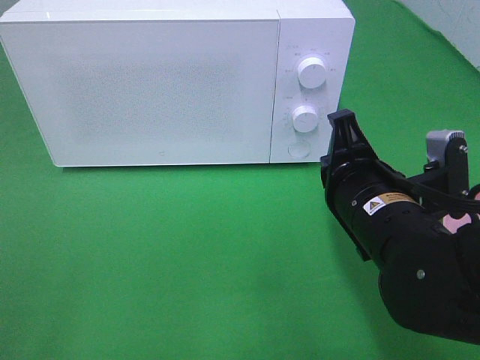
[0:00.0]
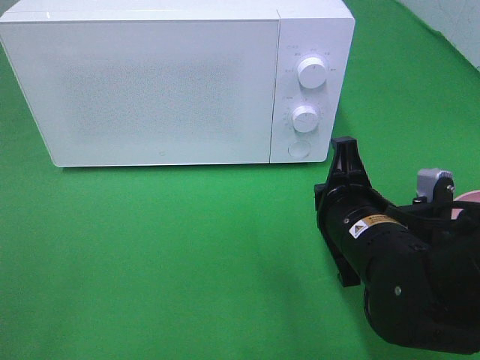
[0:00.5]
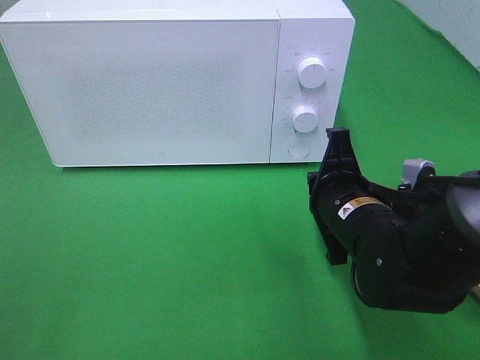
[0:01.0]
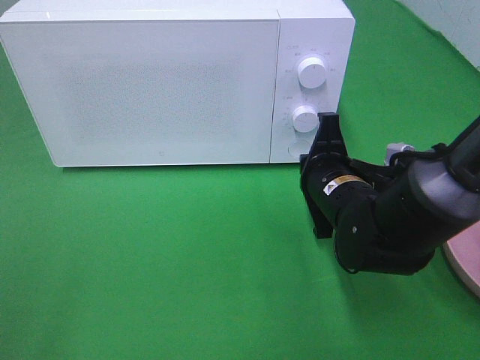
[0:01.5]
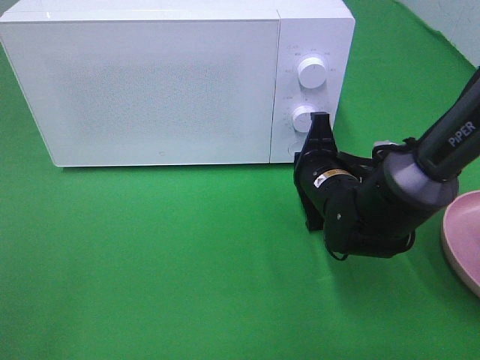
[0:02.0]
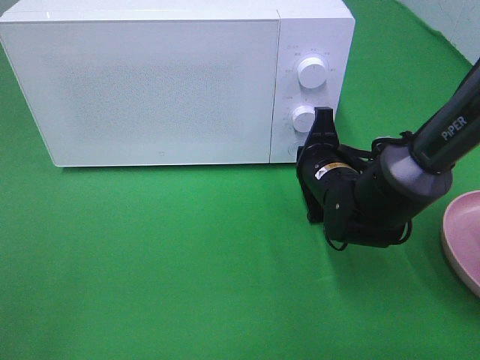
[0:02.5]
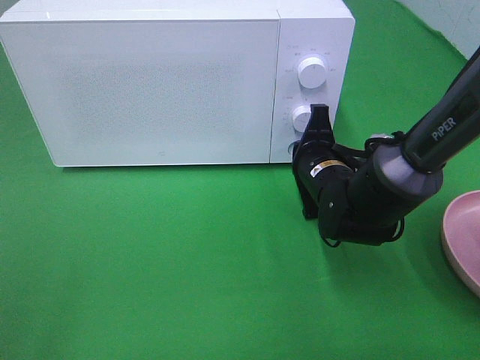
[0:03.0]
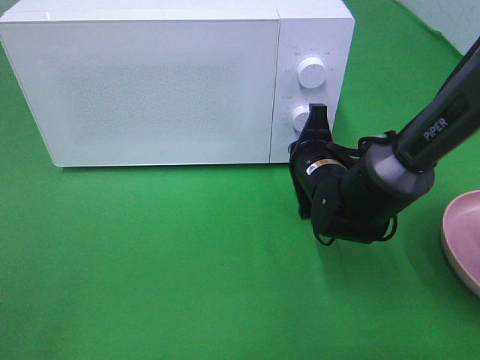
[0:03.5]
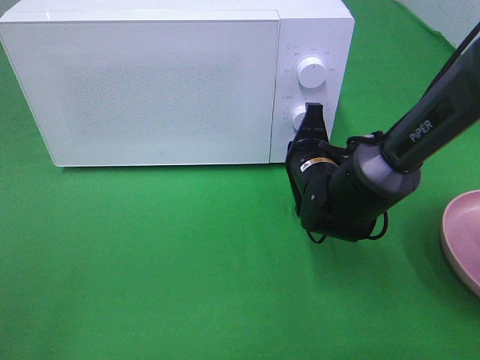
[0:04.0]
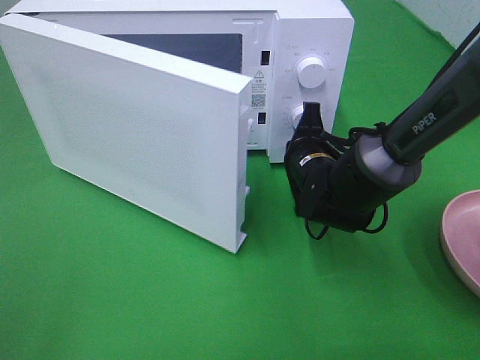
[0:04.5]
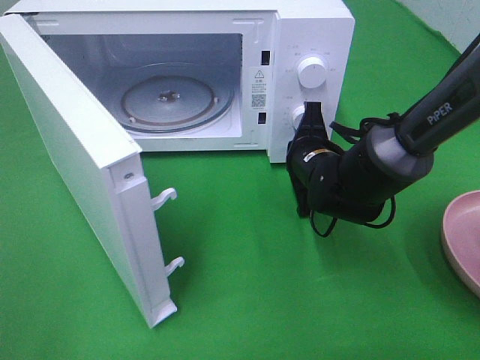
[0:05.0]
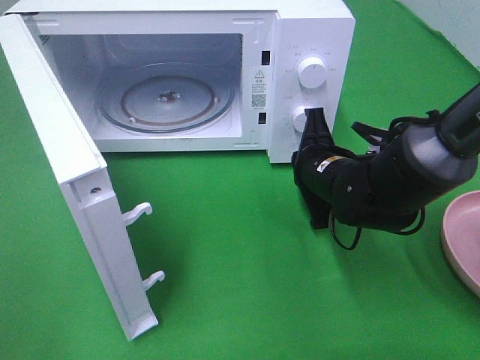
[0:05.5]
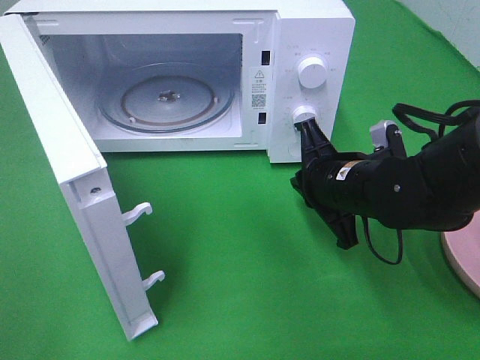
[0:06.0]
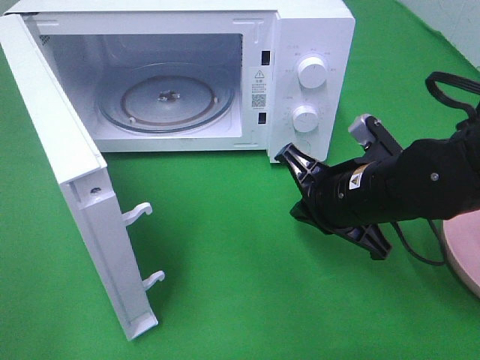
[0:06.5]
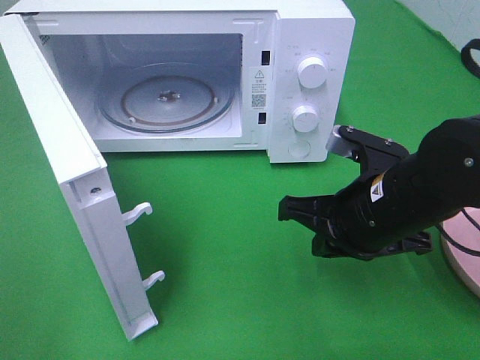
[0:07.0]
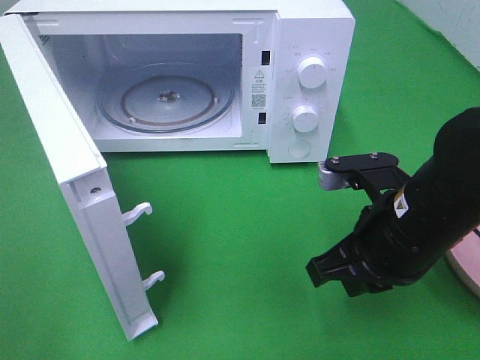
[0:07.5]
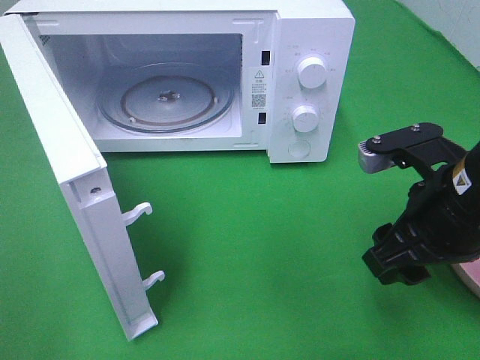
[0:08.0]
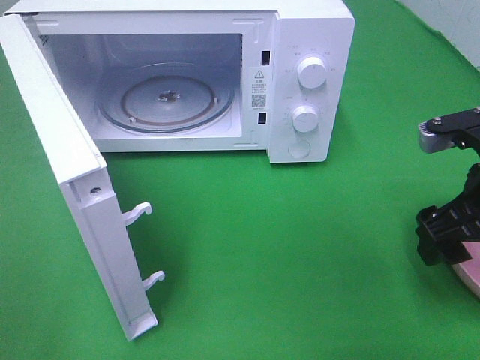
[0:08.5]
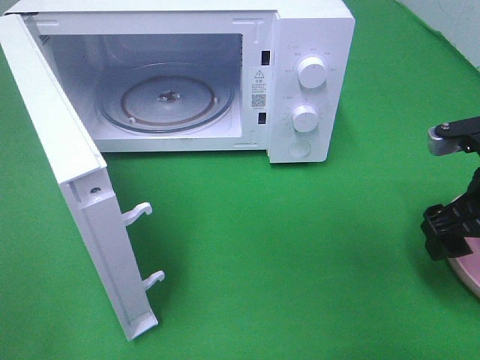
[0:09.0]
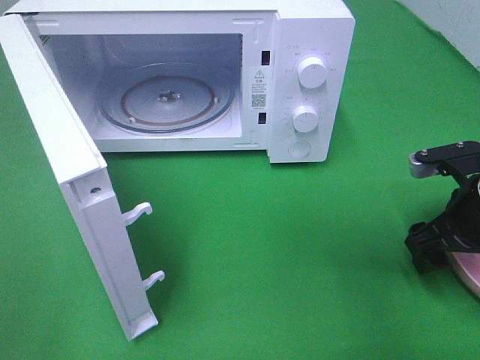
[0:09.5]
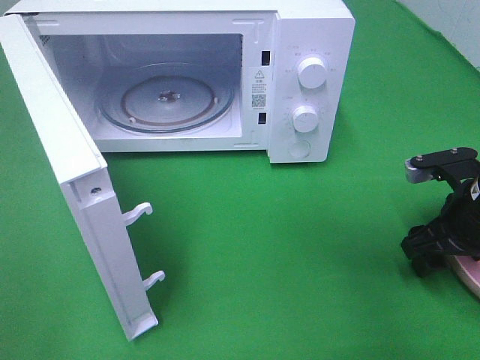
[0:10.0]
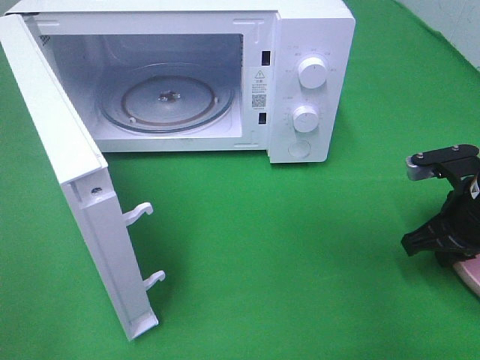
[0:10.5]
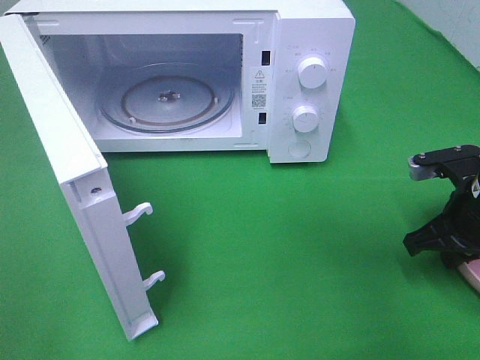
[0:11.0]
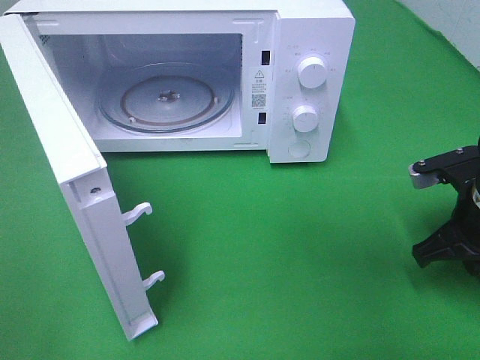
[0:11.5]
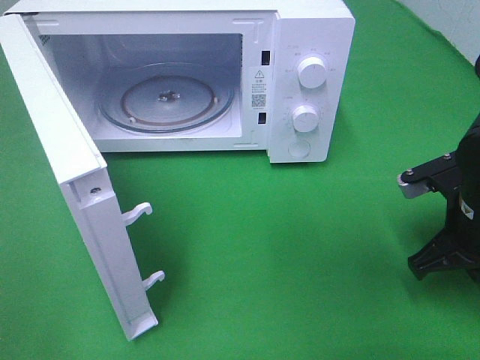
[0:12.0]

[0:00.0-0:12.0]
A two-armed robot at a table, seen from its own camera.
Task of the whole recording: Heat the burger.
Step, 0:00.0 to 0:05.5: Right hand: press the switch.
0:00.0 to 0:02.0: The right gripper shifts approximately 15 cm forward and downward.
0:02.0 to 0:04.0: The grippers stay close to where they were, moving slightly.
0:04.0 to 0:06.0: The right gripper travels backward by some 5 cm.
0:06.0 to 0:08.0: The right gripper is displaced backward, upward and to the right by about 10 cm, and opens.
0:08.0 to 0:10.0: The right gripper moves to the right, downward and forward, some 15 cm.
0:10.0 to 0:12.0: The right gripper closes its fingers.

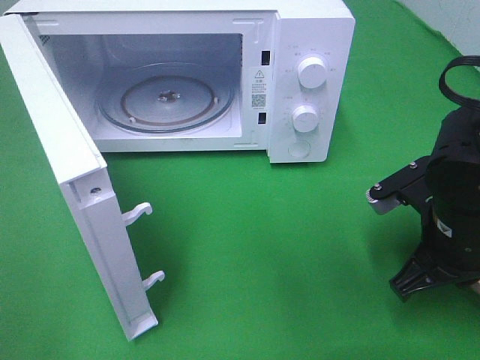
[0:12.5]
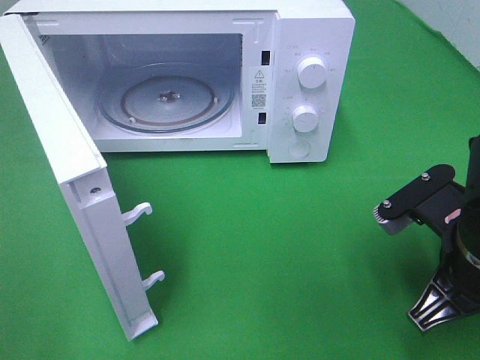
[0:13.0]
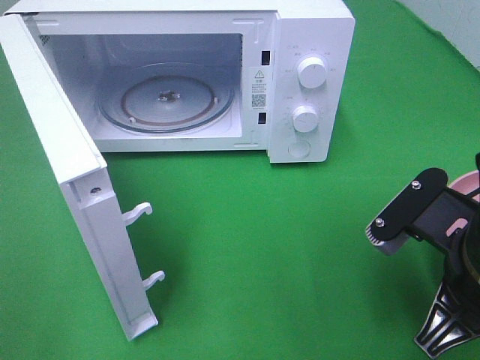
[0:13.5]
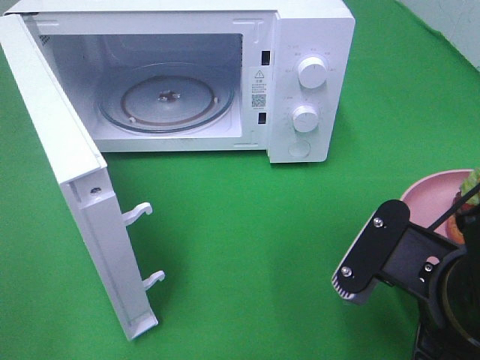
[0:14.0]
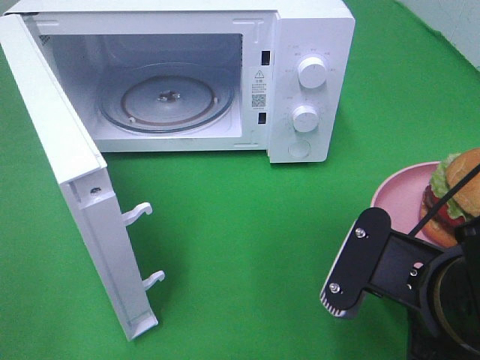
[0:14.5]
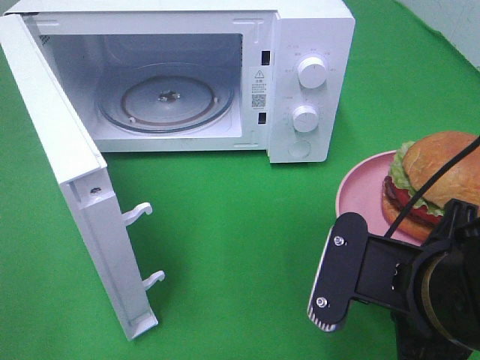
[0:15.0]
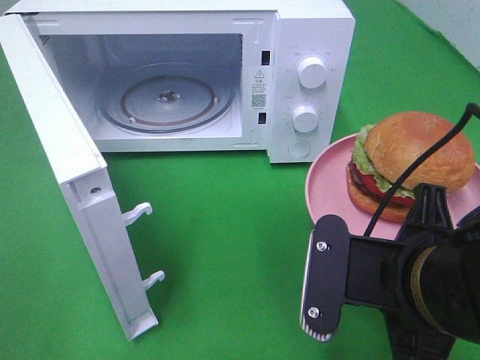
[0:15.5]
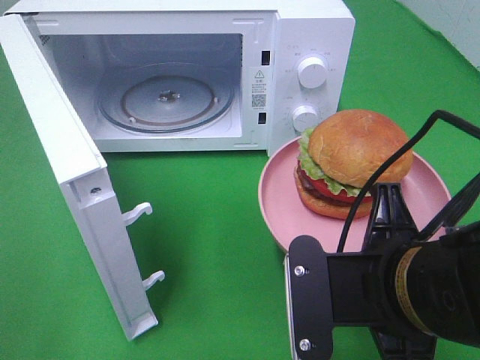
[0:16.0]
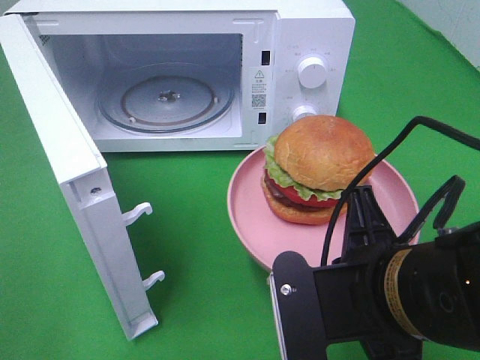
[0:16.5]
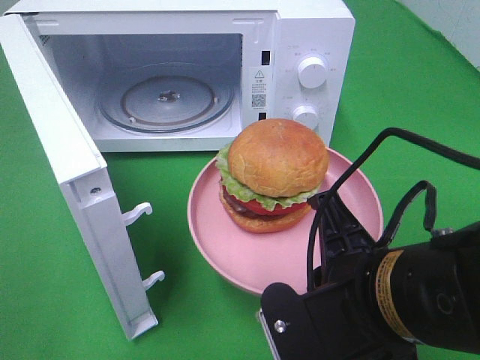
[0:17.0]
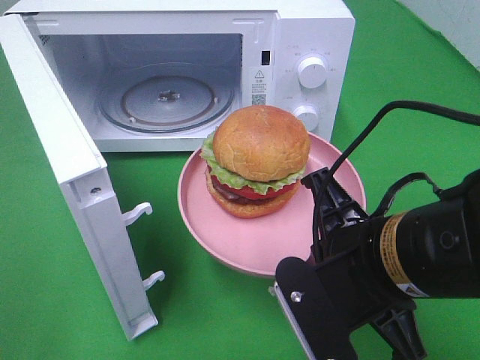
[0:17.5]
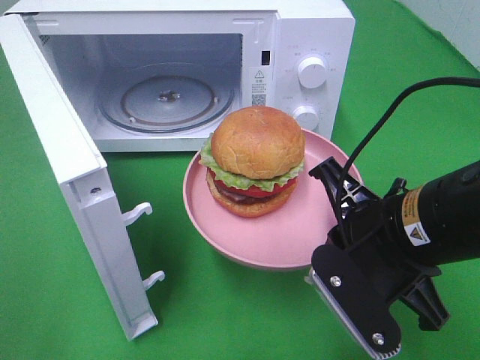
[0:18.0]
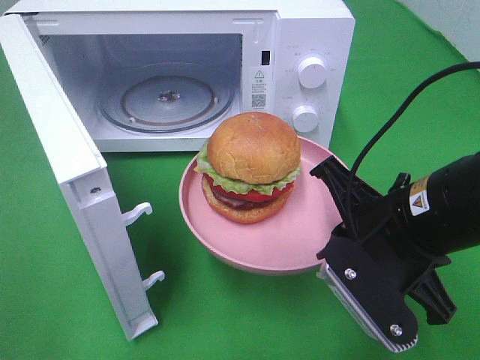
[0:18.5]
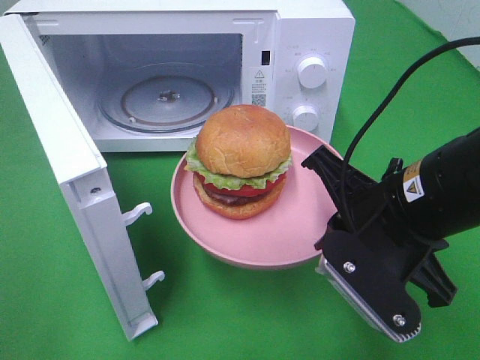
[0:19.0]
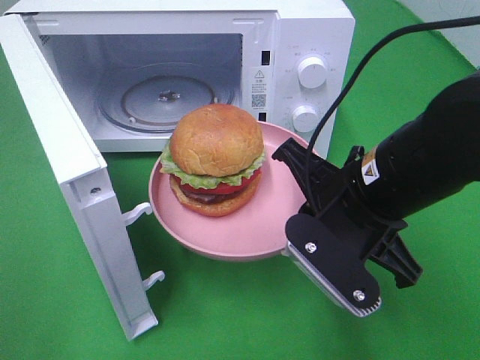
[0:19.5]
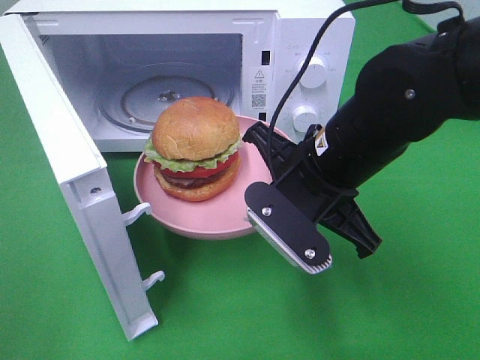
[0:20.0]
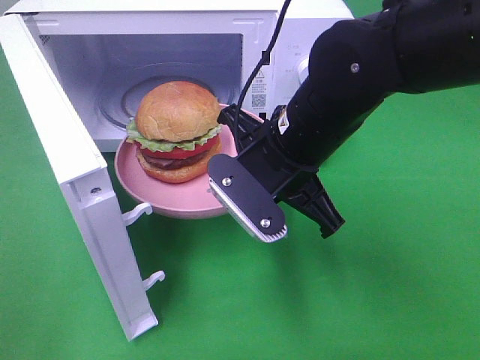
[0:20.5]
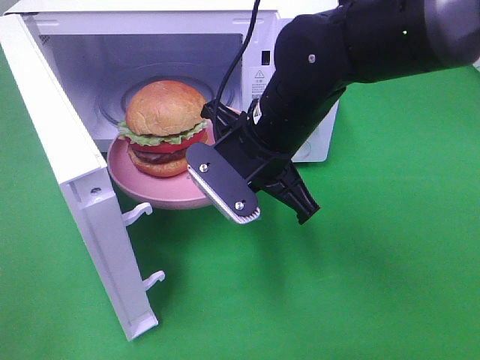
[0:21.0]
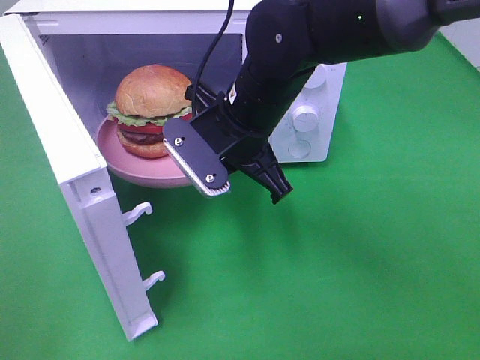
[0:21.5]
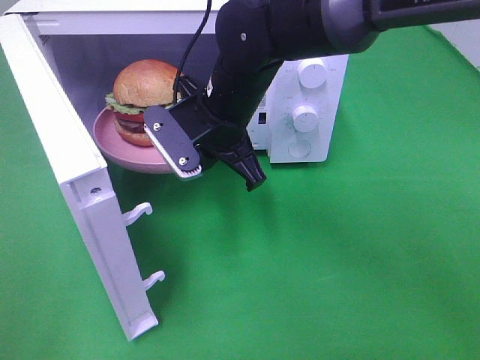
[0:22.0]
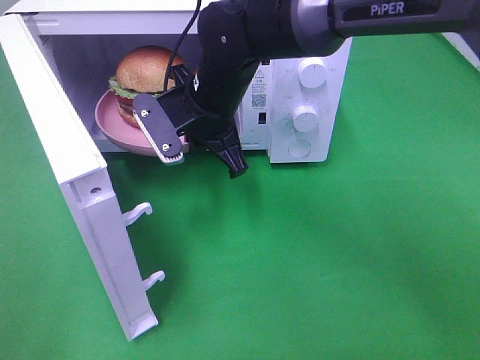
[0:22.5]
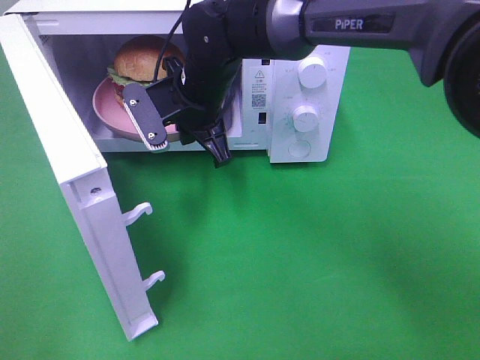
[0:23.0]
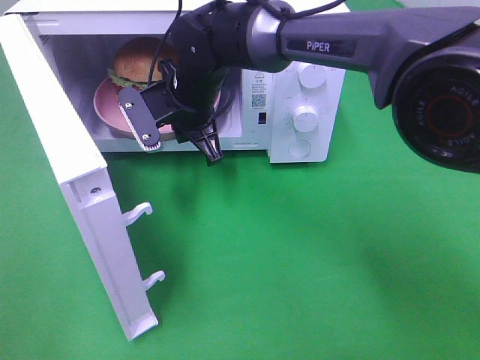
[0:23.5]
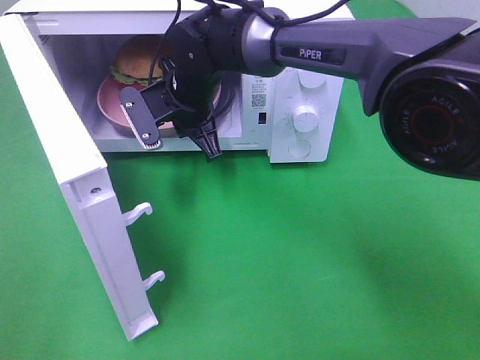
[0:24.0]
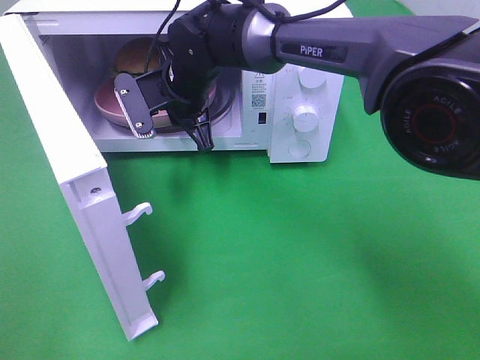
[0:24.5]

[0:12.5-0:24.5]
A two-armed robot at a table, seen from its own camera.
Task of the whole recording: Heat the burger.
0:12.5 to 0:14.5: The right gripper shifts roughly 10 cm backward and to the left.
0:16.5 to 0:18.5: The right gripper heads forward, covering about 5 cm.
0:18.5 to 0:20.5: The right gripper is displaced to the left and forward by about 10 cm.
0:20.5 to 0:22.5: The right gripper heads forward and to the left, covering about 15 cm.
0:22.5 to 0:24.5: The right gripper shifts approximately 5 cm forward.

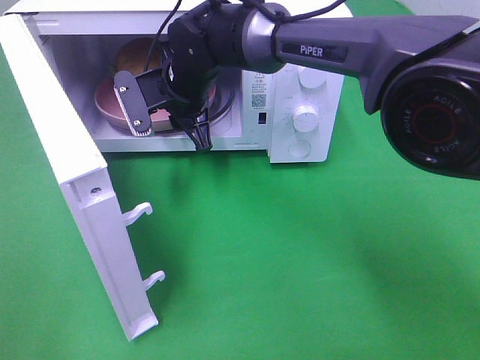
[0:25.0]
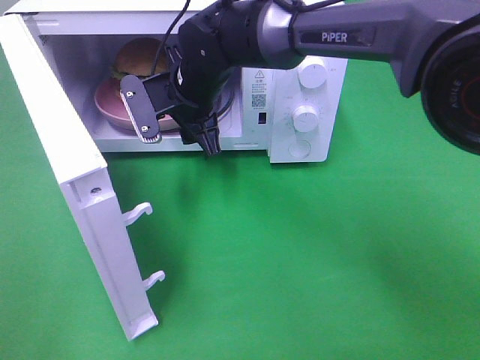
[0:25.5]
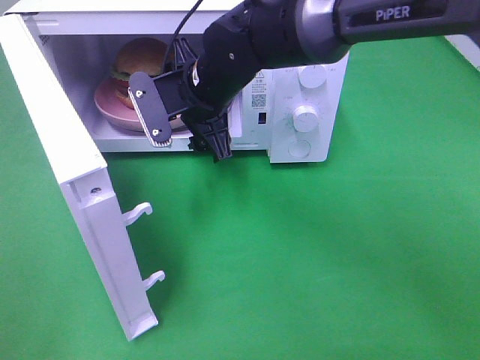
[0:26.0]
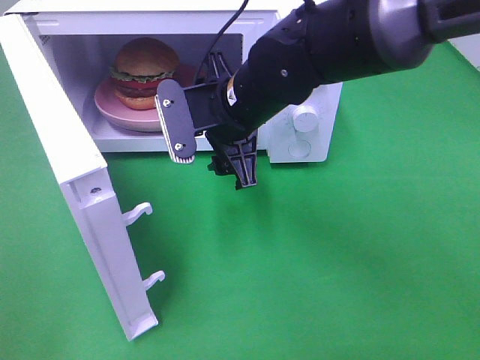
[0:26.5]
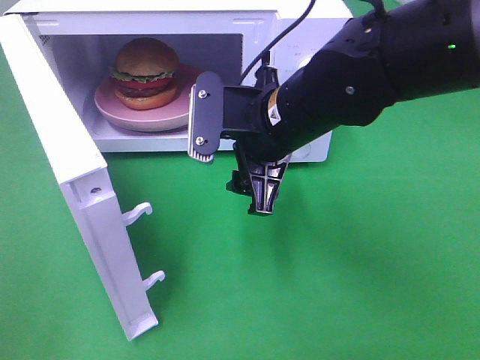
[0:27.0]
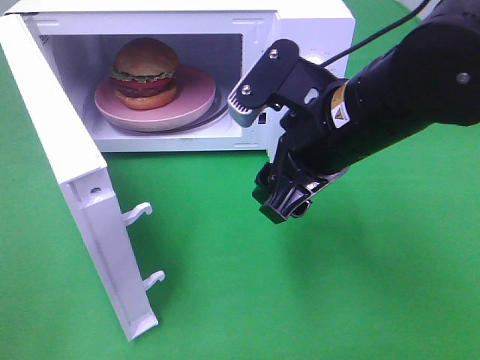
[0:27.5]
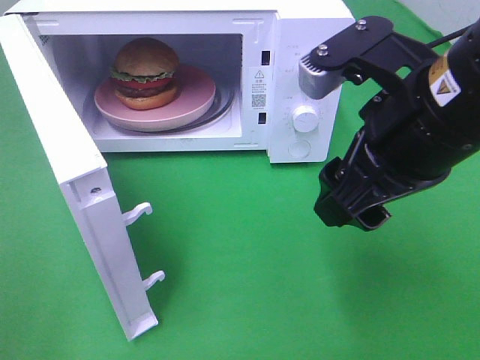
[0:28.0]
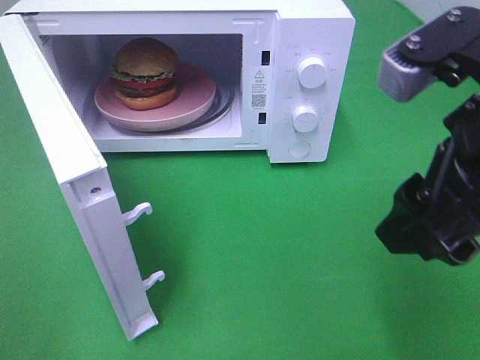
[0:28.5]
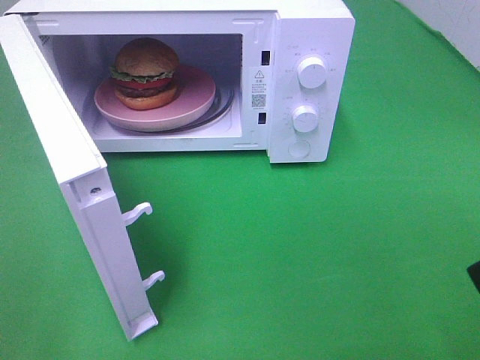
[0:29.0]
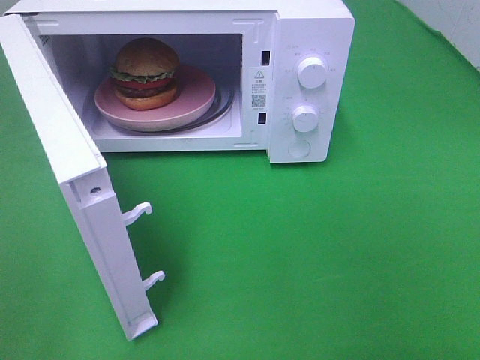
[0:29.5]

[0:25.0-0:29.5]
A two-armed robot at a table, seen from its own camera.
Task of the whole recording: Heat the burger.
0:25.0 to 0:27.0: The right gripper goes some 20 cm backward and to the right, and opens.
0:27.0 to 0:29.5: The right gripper goes approximately 35 cm to the right and backward.
